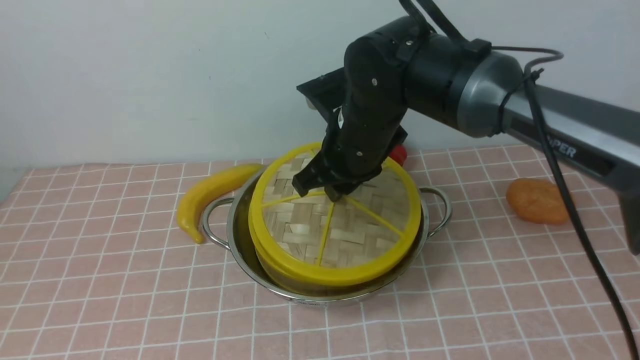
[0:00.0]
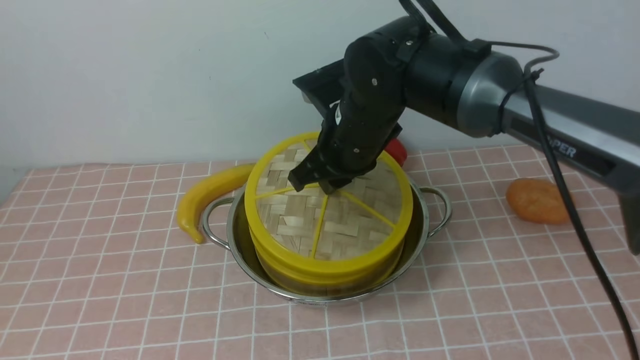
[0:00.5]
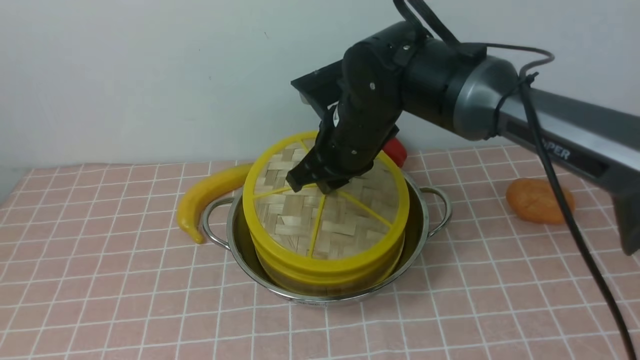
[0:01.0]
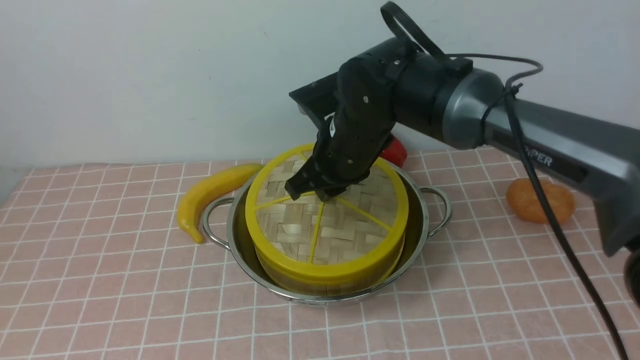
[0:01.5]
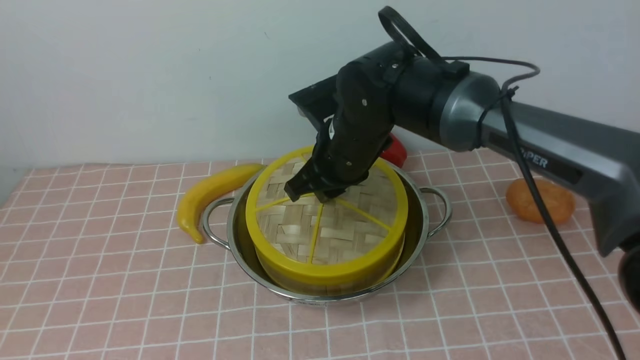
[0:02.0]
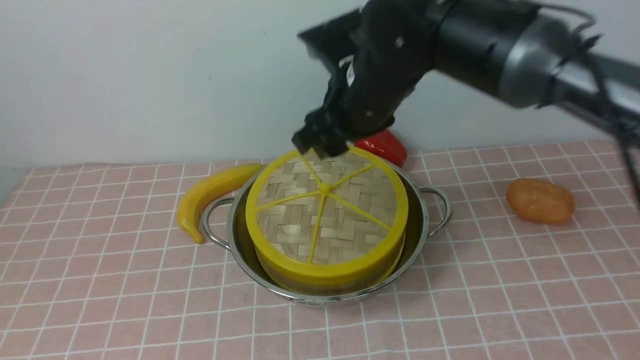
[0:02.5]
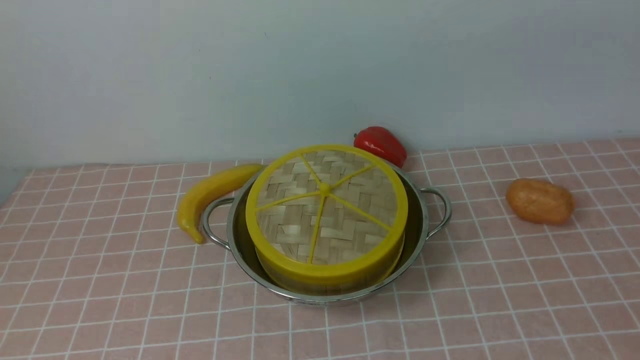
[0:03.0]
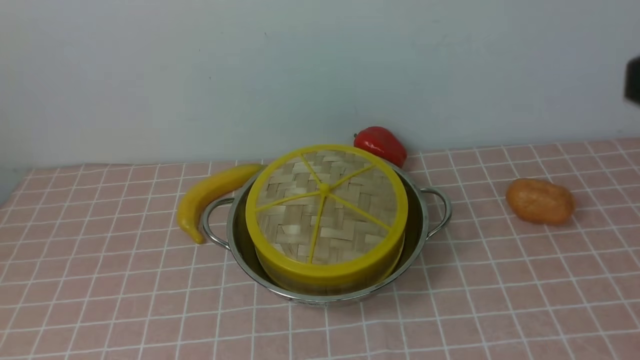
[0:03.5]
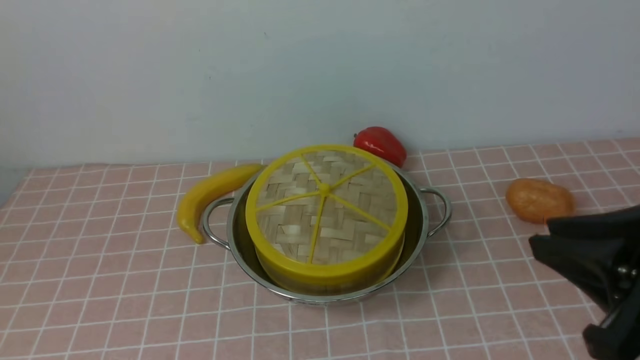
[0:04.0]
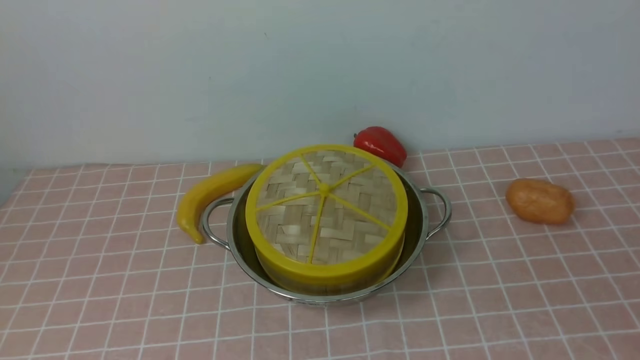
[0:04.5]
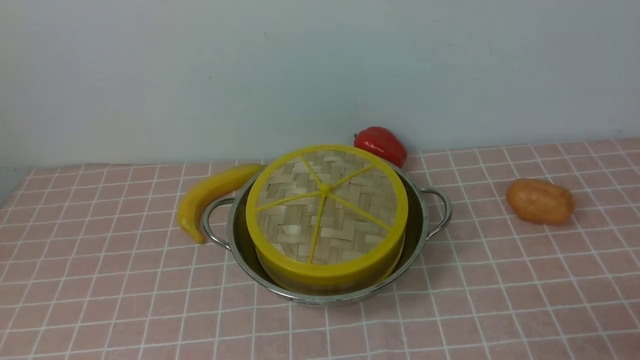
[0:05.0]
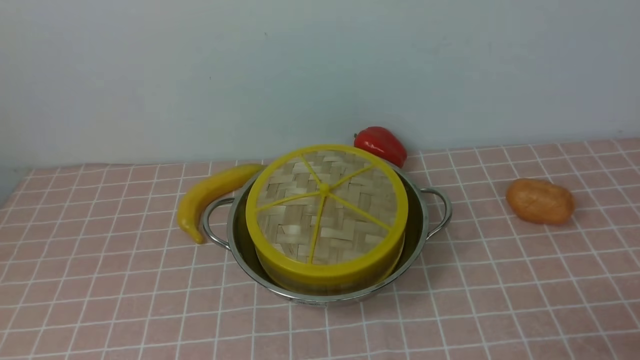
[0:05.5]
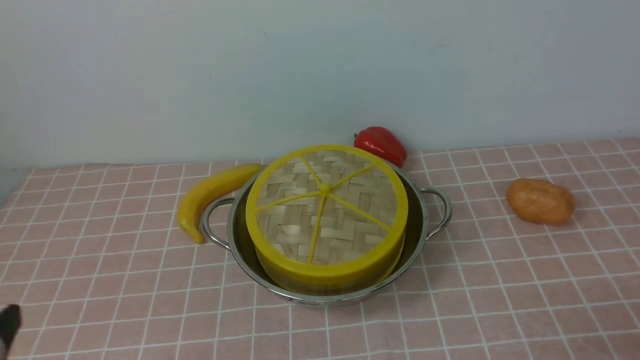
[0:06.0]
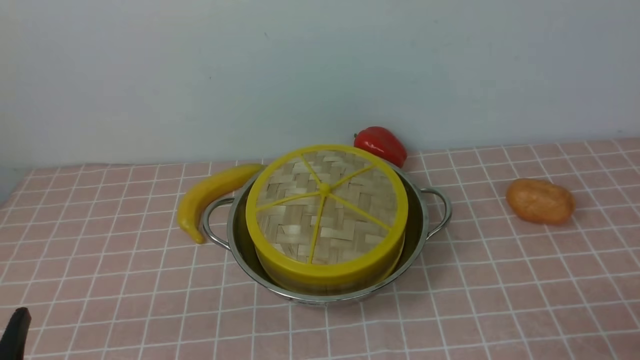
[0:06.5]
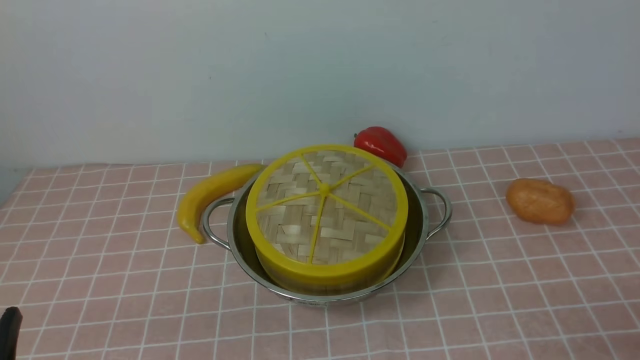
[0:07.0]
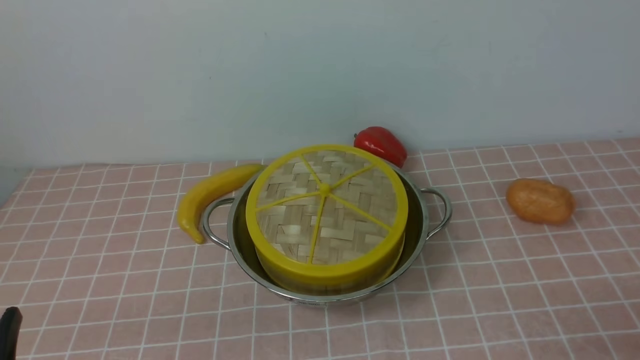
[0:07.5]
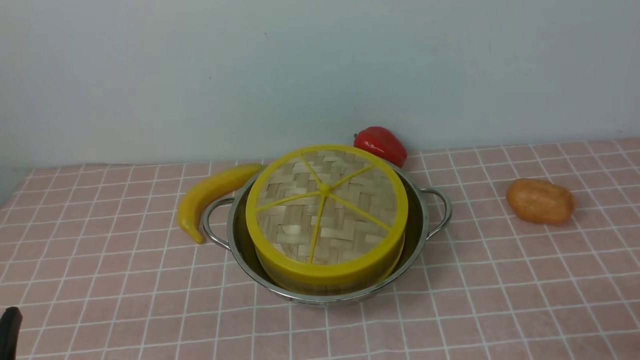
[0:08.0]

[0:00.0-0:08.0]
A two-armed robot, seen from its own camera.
Task of the whole recording: place the steamer in the pot on the pink tablecloth, and put the lid on the steamer.
Step, 0:00.0 to 0:02.0: use the right arm to place the steamer lid on the steamer.
0:00.0 to 0:02.0: The grippers make only small movements.
0:02.0 to 0:04.0: The right gripper is displaced backward and to the right by roughly 35 cm, goes upward and returns, roughly 30 cm each way, and opens, then closes once more.
0:04.0 to 0:06.0: The right gripper shifts approximately 15 cm downward, to the right and backward.

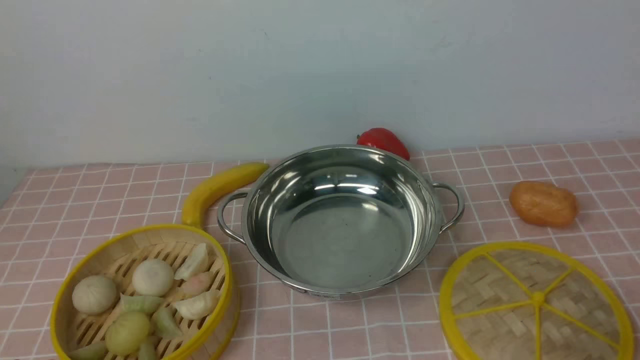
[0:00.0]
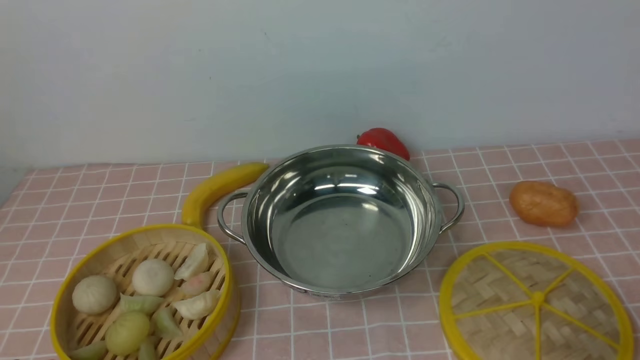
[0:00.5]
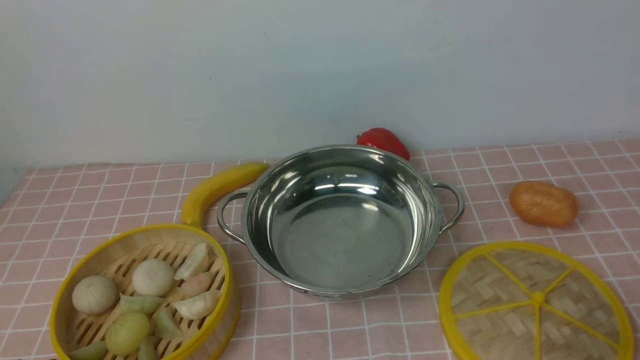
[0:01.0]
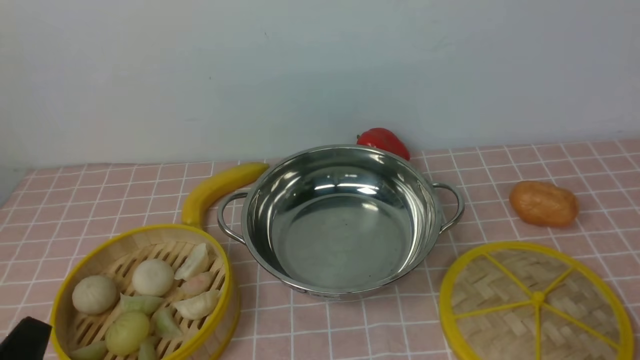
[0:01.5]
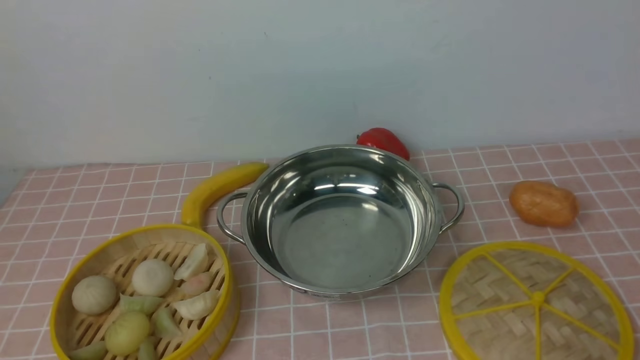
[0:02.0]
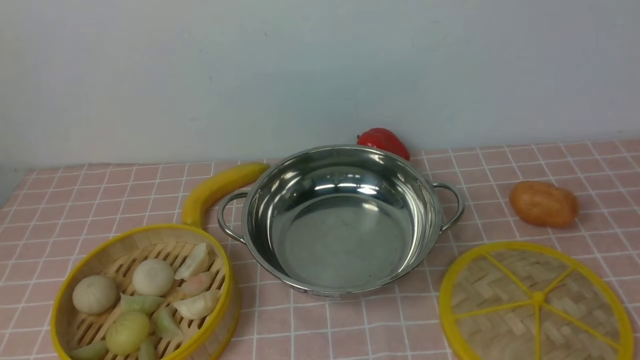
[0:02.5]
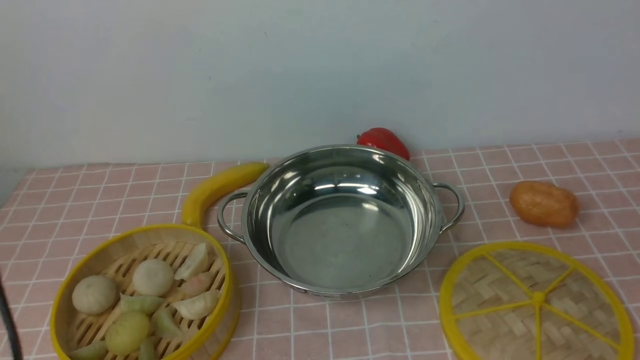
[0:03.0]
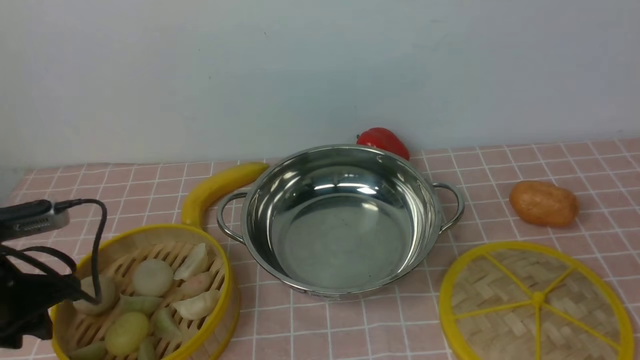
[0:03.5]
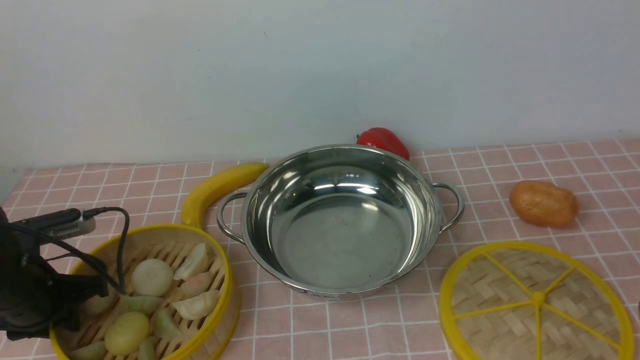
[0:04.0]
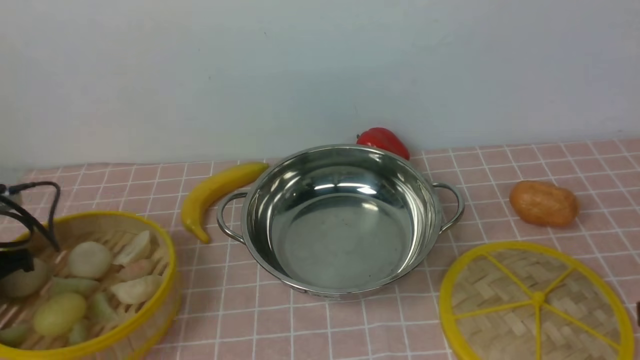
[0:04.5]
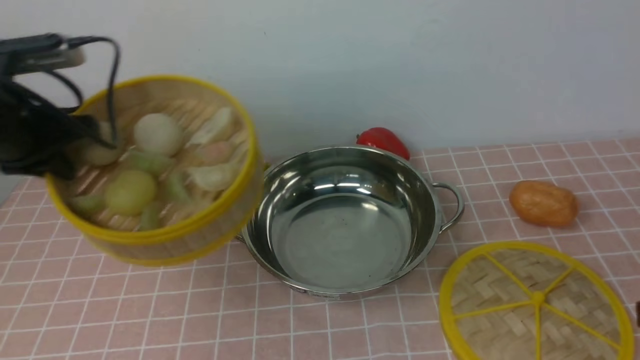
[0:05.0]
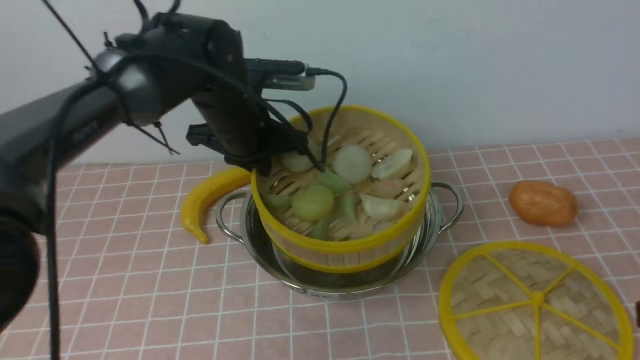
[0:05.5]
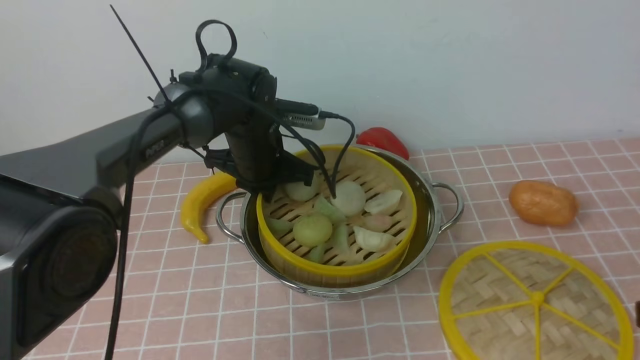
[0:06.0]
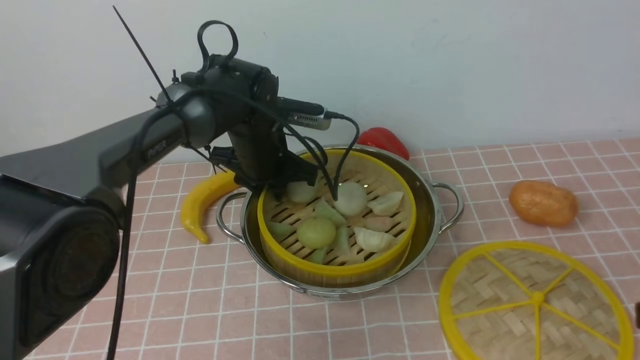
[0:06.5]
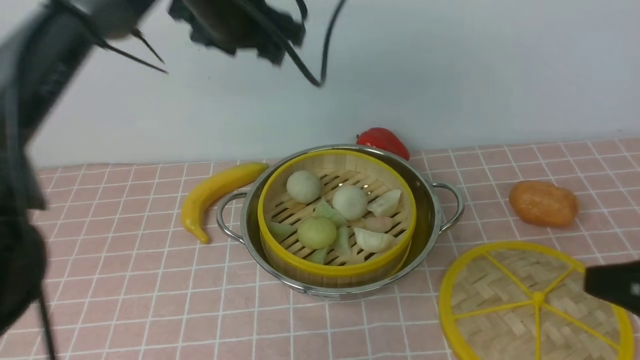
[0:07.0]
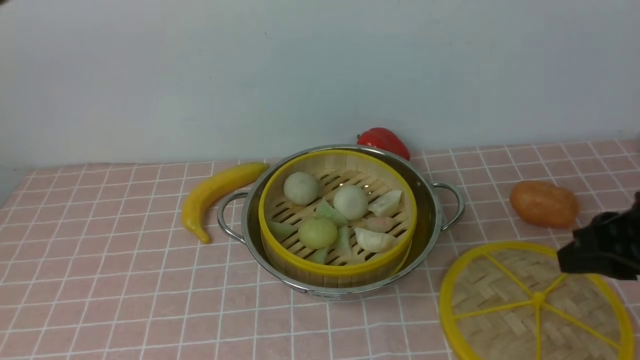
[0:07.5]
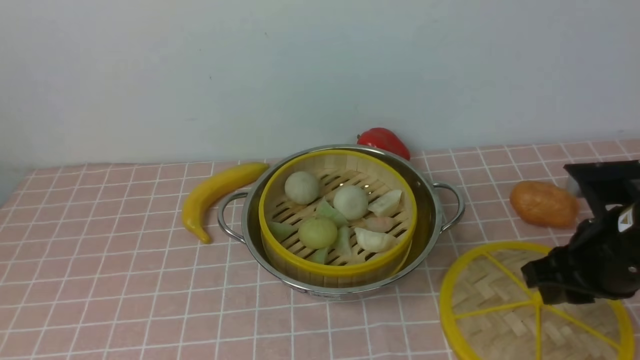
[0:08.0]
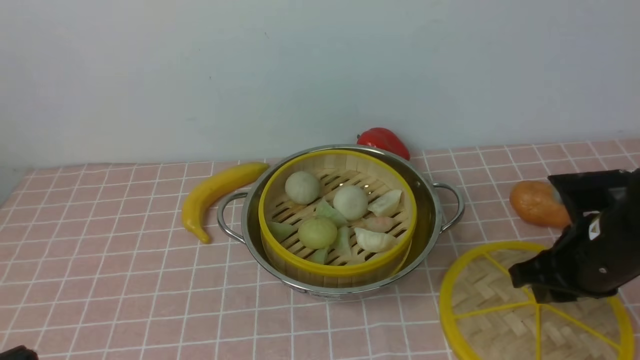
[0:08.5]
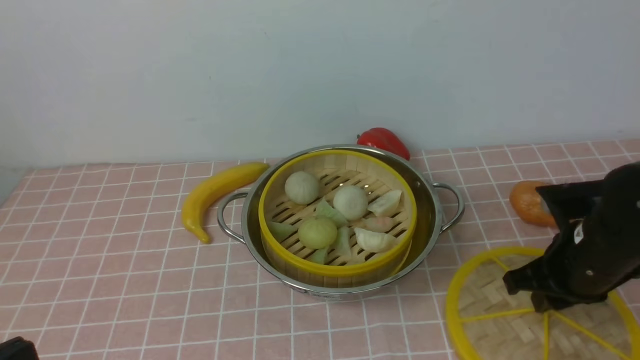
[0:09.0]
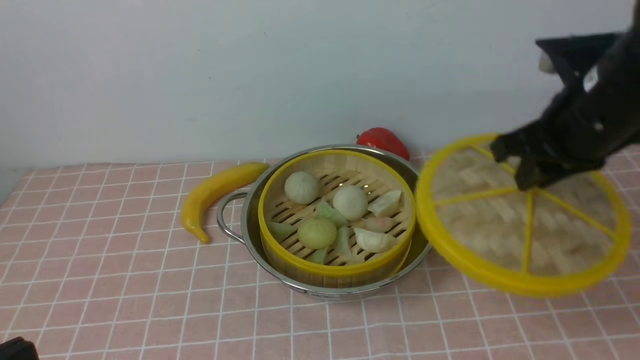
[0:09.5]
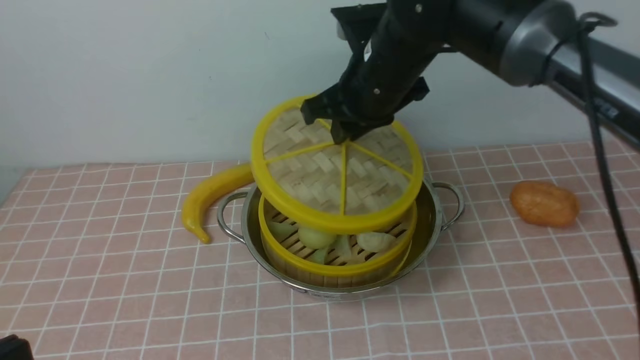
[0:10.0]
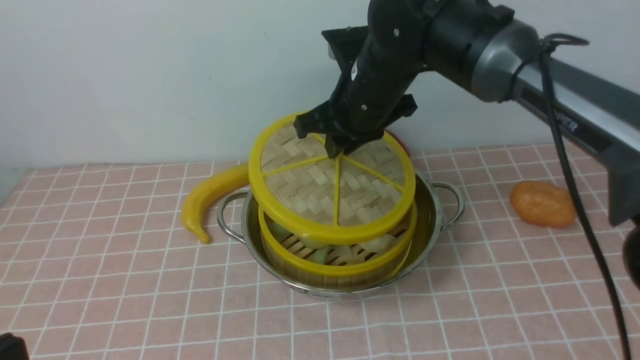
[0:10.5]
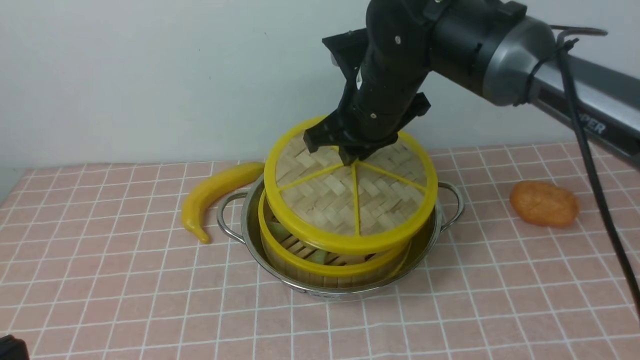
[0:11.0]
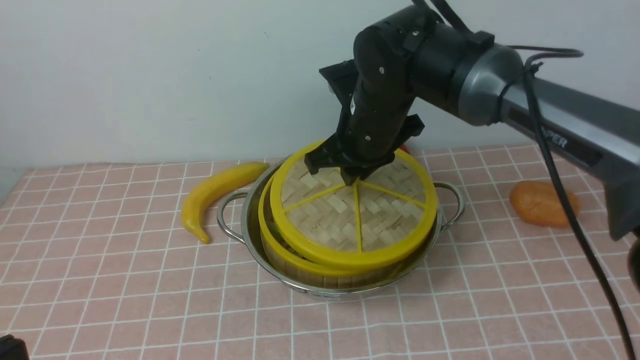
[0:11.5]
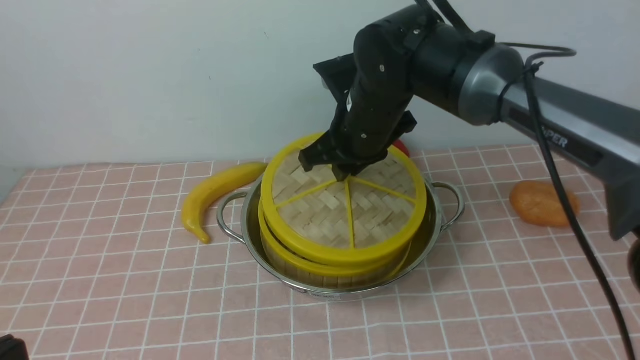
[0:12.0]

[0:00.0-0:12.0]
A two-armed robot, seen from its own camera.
Task of the whole recording: place the steamer in the pot on the pink tablecloth, and put the lid on the steamer.
Step, 0:00.0 to 0:04.0: use the left arm to lift the steamer closest to it.
Step, 0:05.0 to 0:06.5: use the left arm to put the steamer into the iron steamer pot in the middle.
Step, 0:07.0 to 0:09.0: use the right arm to lift the lid of the steamer.
0:02.0 to 0:04.0: The left gripper heads forward and downward, covering about 25 cm.
0:04.0 to 0:06.0: The left gripper travels to the right and forward by approximately 30 cm, and closes its fingers.
0:06.0 to 0:08.0: The right gripper is displaced forward by about 10 cm, while the left gripper travels backward and upward by some 40 cm, and opens, then closes again.
0:08.0 to 0:10.0: The left gripper travels downward by roughly 10 cm. The right gripper is displaced to the left, forward and upward by roughly 25 cm.
0:10.0 to 0:12.0: The right gripper is displaced downward by roughly 5 cm.
